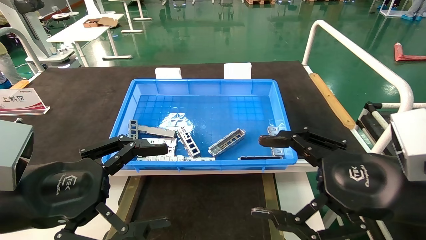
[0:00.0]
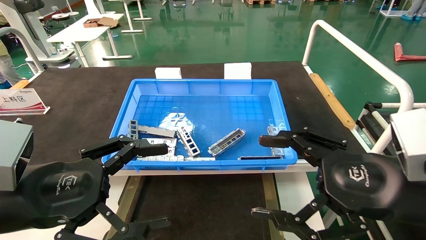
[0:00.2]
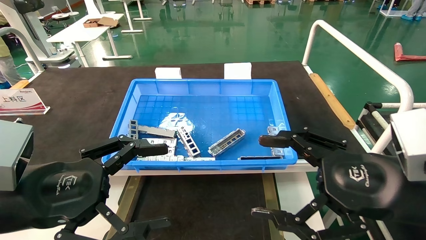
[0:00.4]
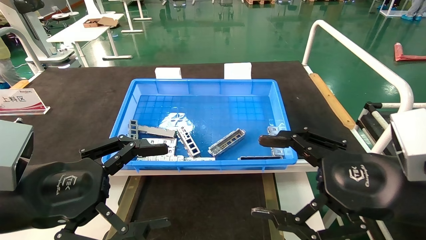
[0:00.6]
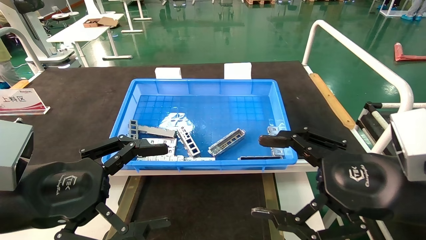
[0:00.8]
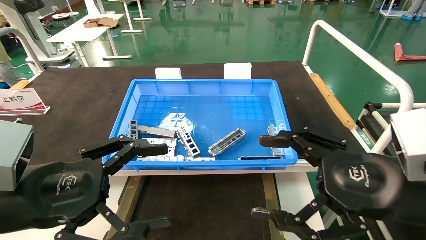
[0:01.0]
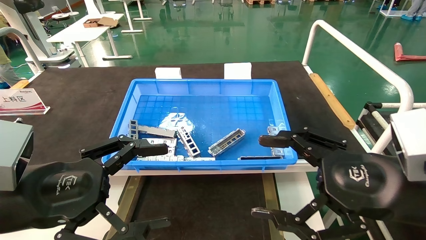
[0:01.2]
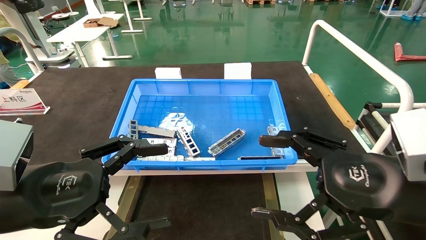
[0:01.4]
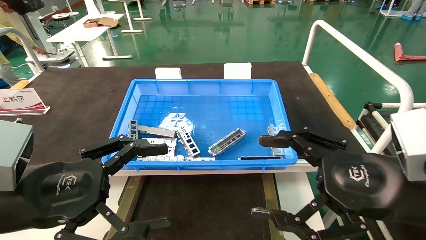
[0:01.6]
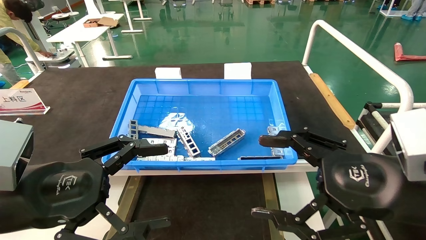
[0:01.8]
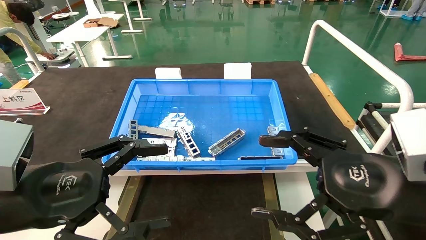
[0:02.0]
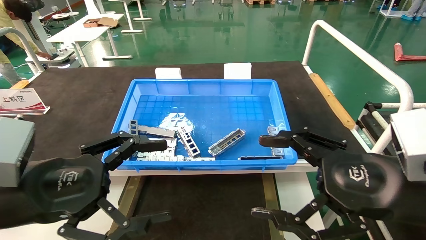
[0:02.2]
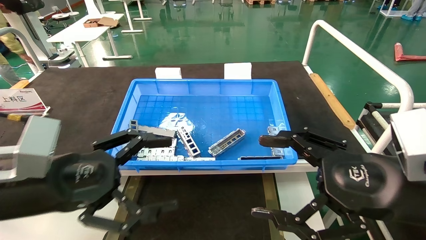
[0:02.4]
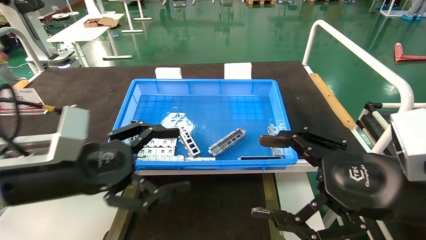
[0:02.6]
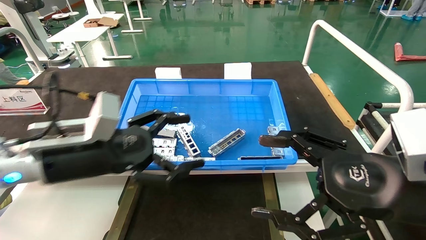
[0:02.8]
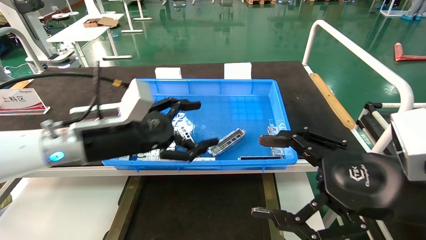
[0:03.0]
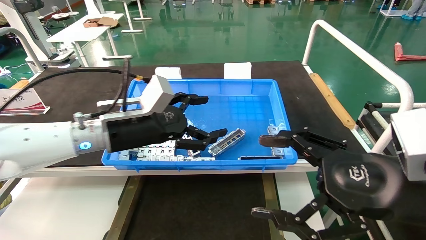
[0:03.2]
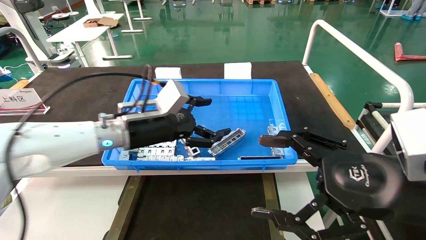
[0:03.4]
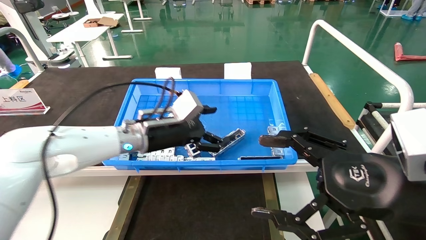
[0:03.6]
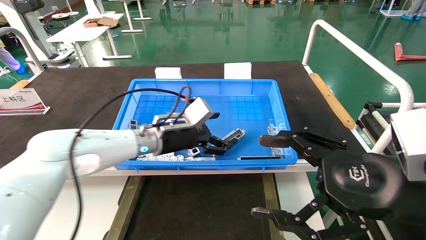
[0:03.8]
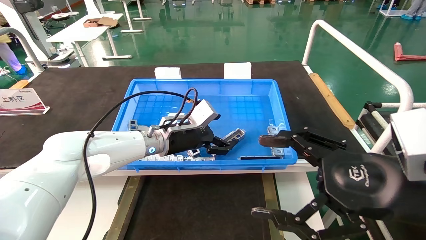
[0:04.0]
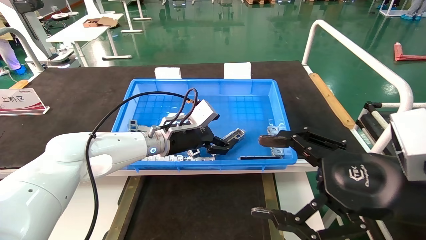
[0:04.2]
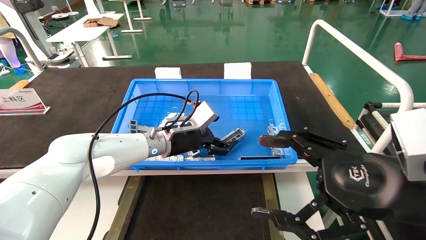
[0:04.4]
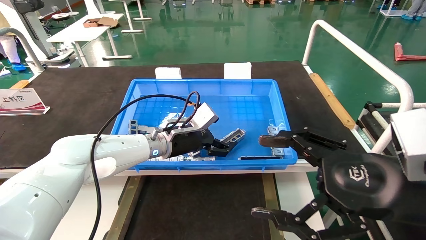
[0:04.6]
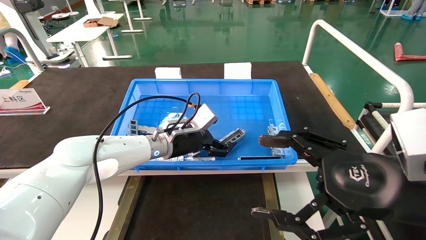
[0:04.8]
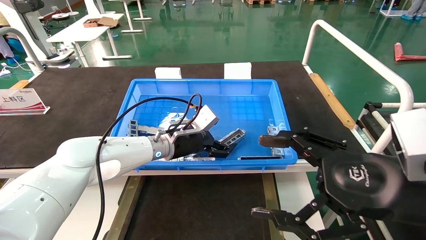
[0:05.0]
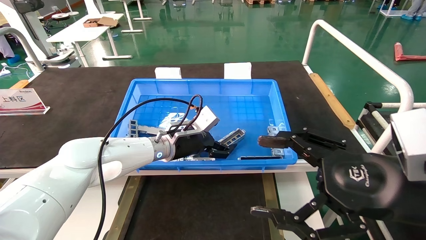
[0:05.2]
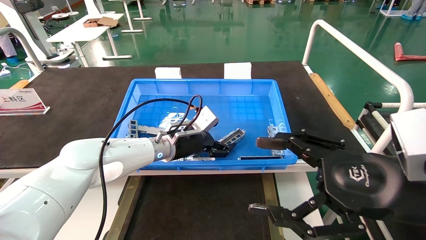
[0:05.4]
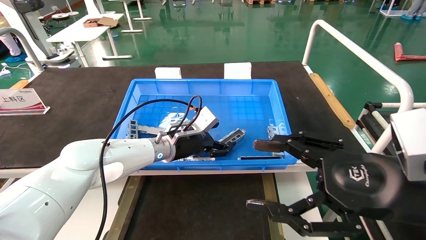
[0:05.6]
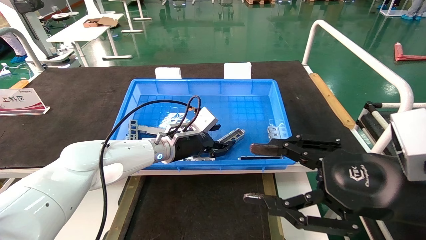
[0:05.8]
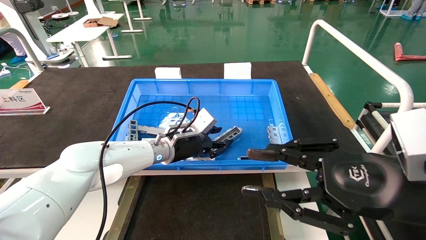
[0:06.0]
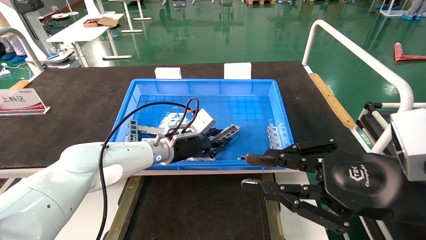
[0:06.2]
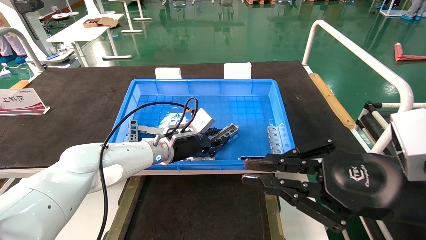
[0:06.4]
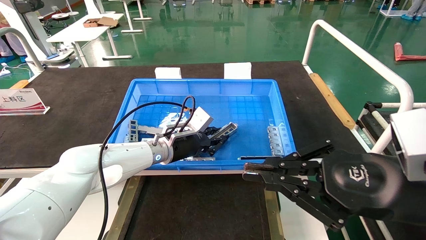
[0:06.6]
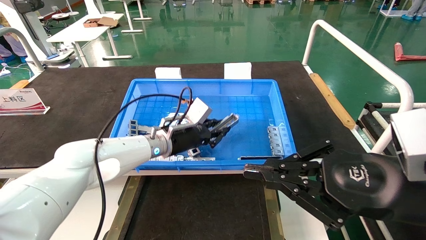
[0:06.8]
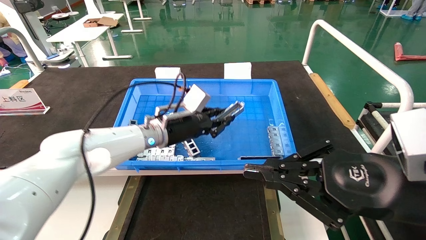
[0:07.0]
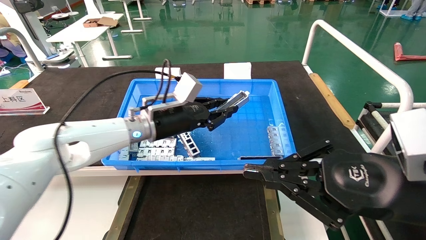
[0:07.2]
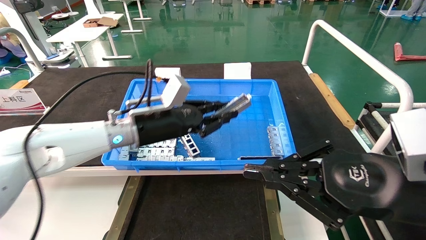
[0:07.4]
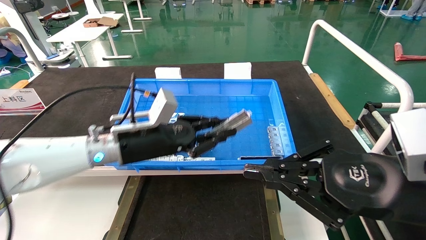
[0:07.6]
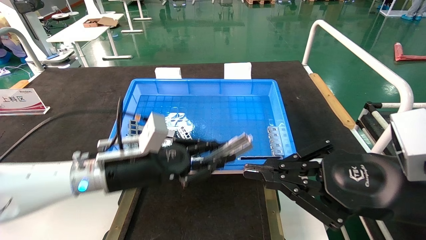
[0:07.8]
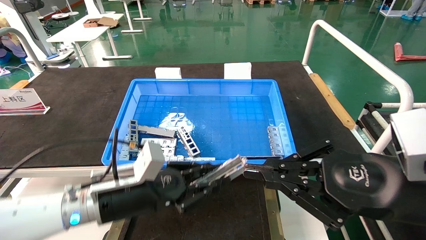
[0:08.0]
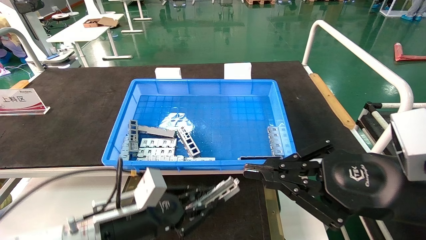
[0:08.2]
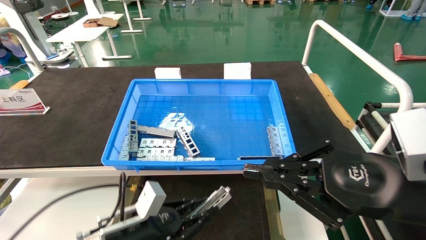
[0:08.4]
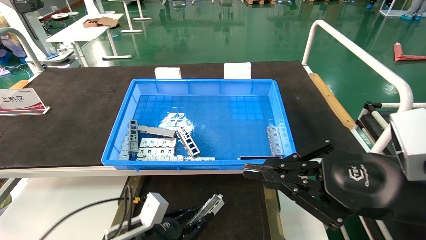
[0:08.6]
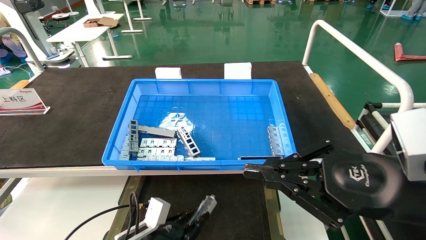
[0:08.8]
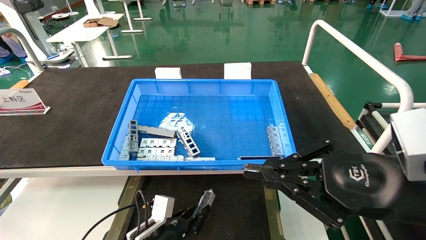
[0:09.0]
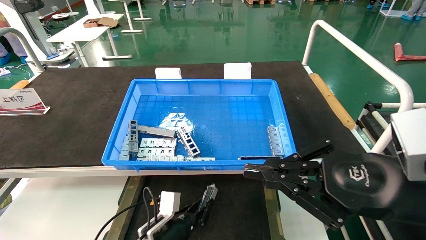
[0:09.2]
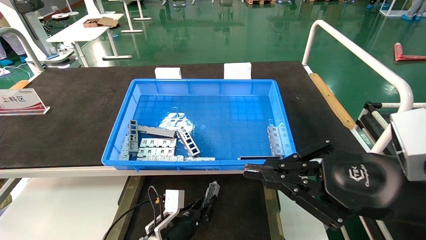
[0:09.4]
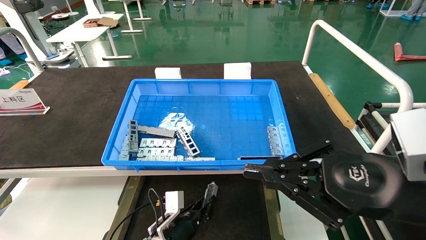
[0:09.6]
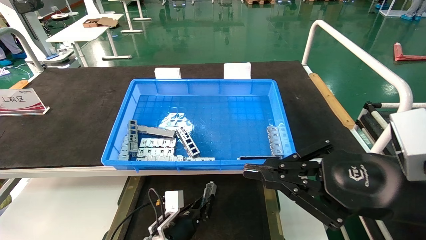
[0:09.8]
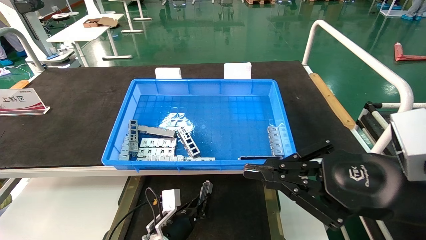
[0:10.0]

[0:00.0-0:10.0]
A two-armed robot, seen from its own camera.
Task of the whole recording: Grasp the part with one hand and place it on the black container.
Step, 0:02.4 to 0:07.0: Pick up the front USB bracket from the feeding area.
0:00.0 to 0:01.4: Both grippers stay put.
0:01.4 to 0:02.8: The left gripper travels forward by roughly 10 cm.
0:02.8 to 0:04.2: The left gripper is displaced forward and to the right by about 20 cm.
0:04.2 to 0:05.8: The grippers stay close to where they were, moving slightly.
0:05.8 to 0:07.2: The left gripper heads upward, covering approximately 5 cm, and closes. The right gripper closes.
0:07.2 to 0:08.6: The left gripper heads downward and backward, covering roughly 25 cm.
0:08.6 to 0:10.0: The left gripper is displaced forward, downward and to the right by some 15 cm.

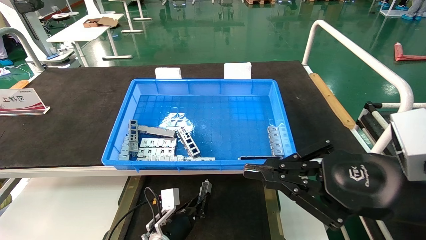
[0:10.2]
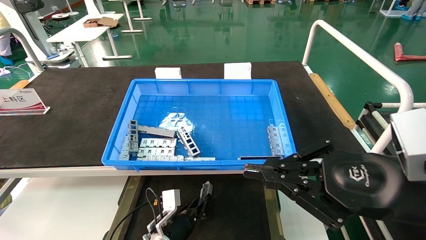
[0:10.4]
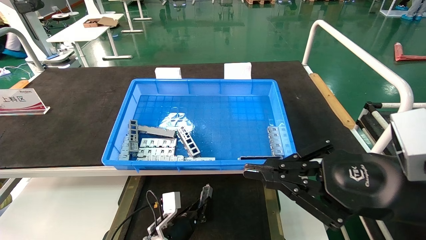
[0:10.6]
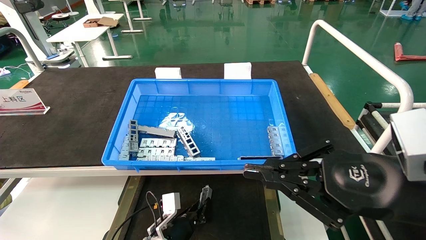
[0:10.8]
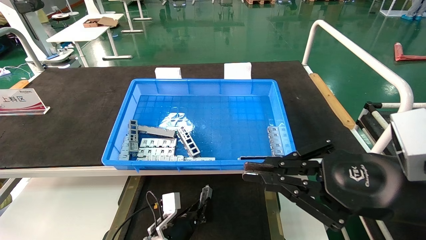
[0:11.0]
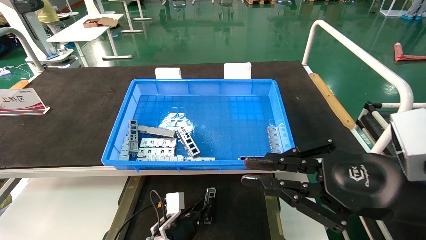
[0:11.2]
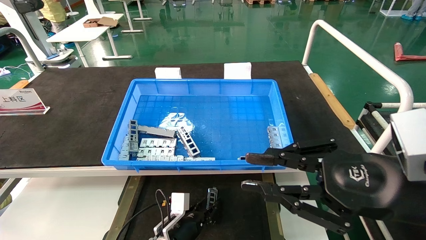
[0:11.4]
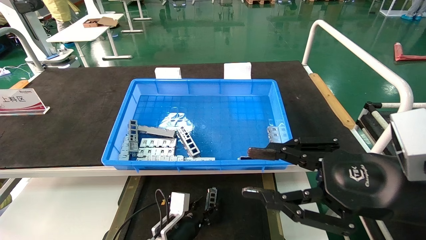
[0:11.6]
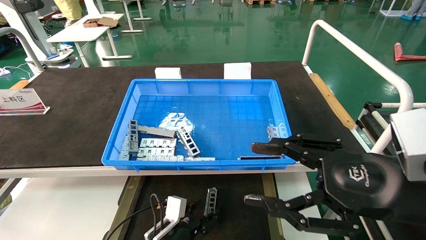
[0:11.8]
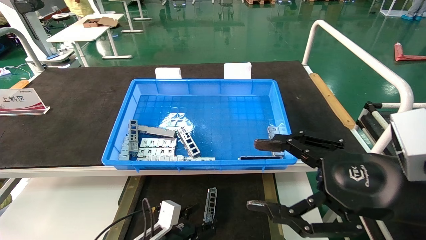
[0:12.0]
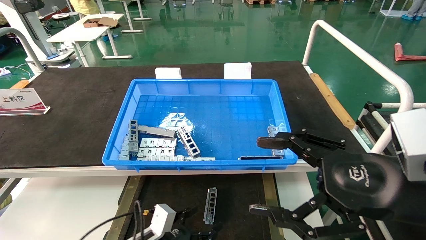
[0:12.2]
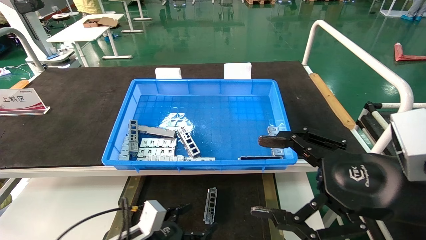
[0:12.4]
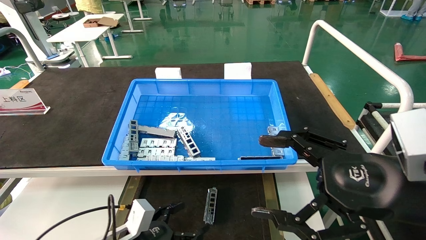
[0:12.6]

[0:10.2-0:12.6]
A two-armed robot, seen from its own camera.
Task of the whole recording: Grasp the part with one hand and place it on the black container.
0:10.2 to 0:11.4: The grippers make only small movements.
0:11.4 to 0:12.6: The right gripper opens up; the left gripper travels backward, to the left and upward by about 15 cm, and opens up.
